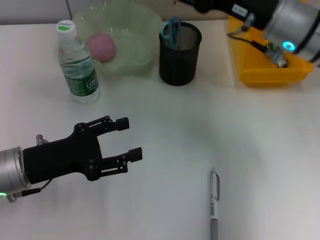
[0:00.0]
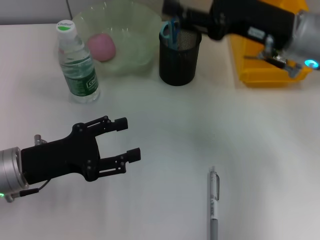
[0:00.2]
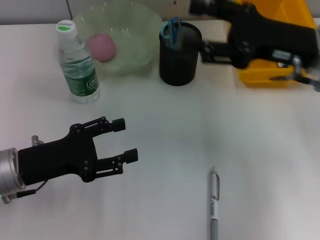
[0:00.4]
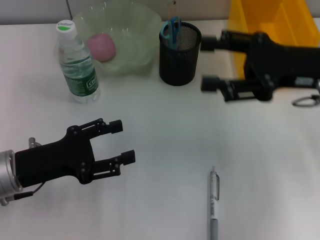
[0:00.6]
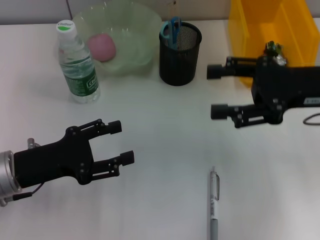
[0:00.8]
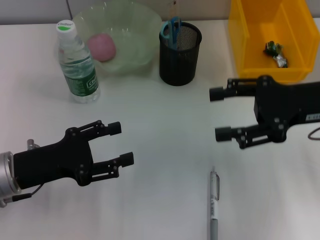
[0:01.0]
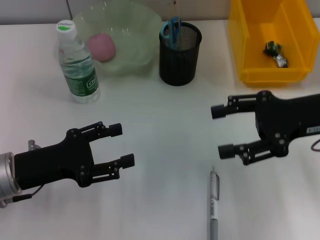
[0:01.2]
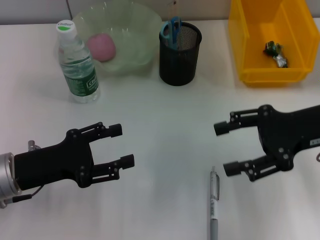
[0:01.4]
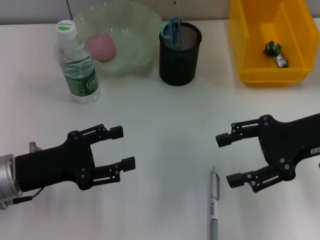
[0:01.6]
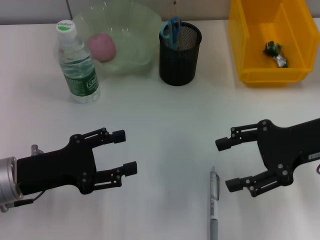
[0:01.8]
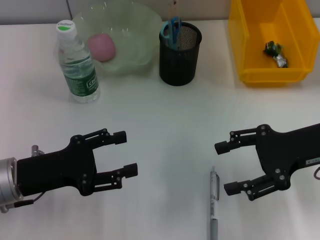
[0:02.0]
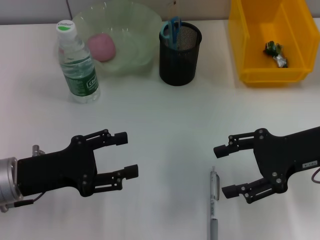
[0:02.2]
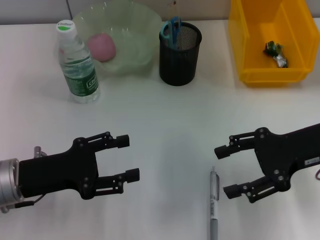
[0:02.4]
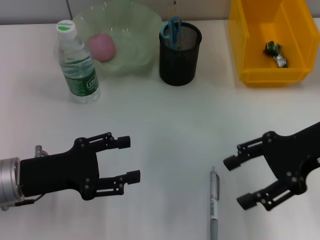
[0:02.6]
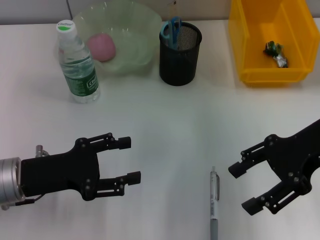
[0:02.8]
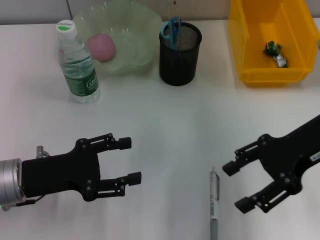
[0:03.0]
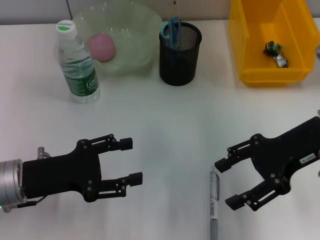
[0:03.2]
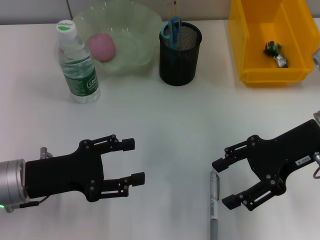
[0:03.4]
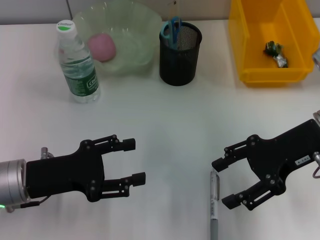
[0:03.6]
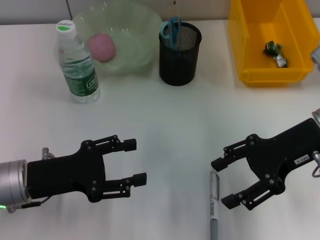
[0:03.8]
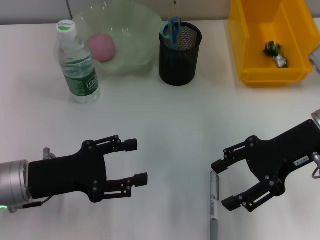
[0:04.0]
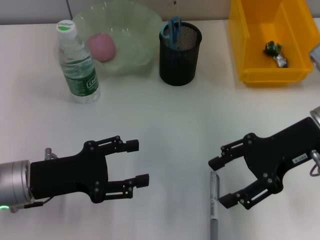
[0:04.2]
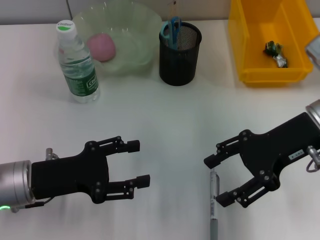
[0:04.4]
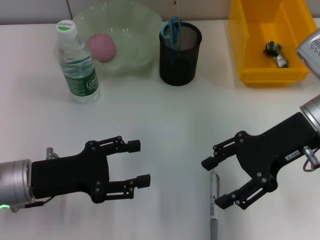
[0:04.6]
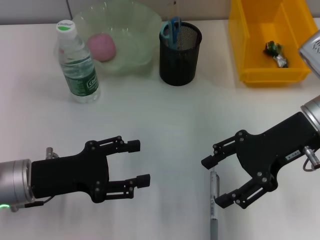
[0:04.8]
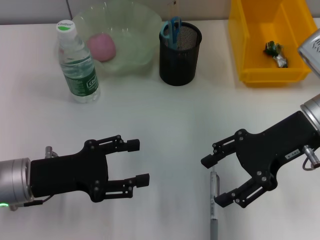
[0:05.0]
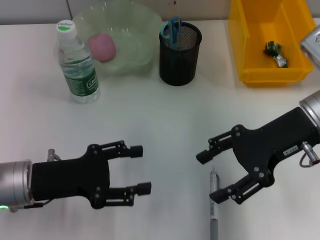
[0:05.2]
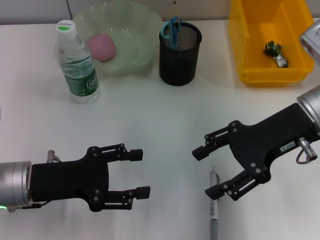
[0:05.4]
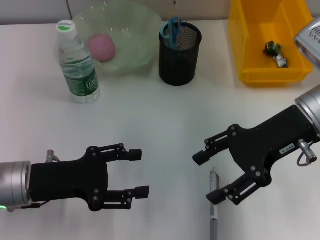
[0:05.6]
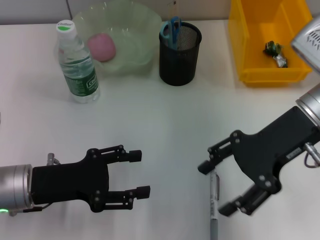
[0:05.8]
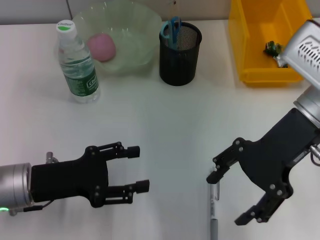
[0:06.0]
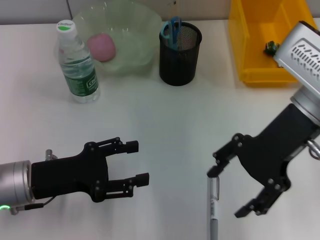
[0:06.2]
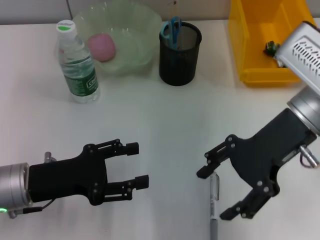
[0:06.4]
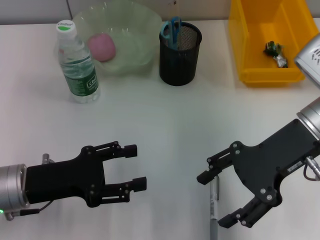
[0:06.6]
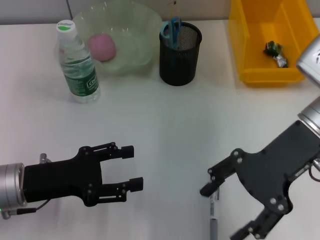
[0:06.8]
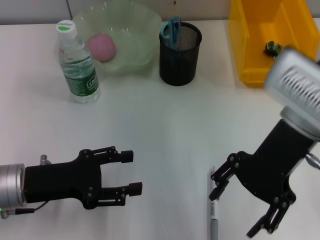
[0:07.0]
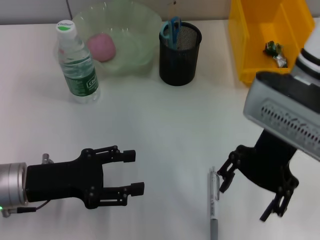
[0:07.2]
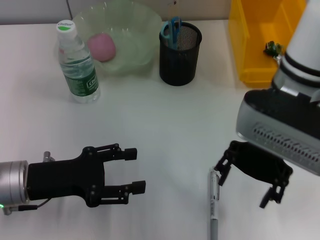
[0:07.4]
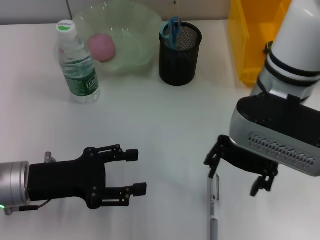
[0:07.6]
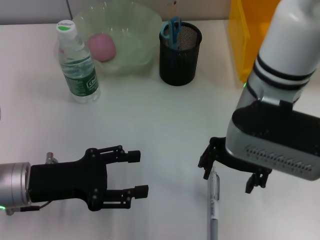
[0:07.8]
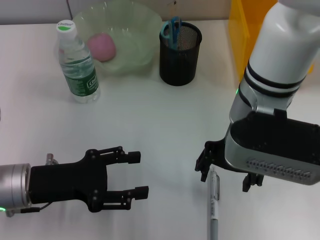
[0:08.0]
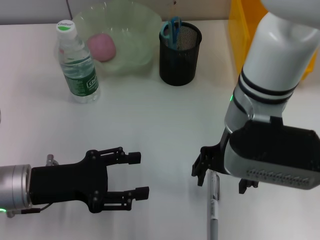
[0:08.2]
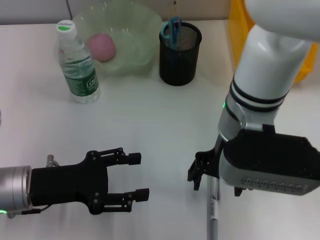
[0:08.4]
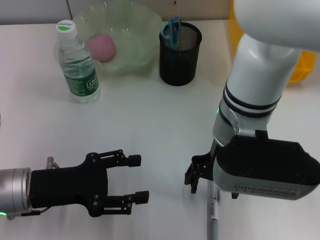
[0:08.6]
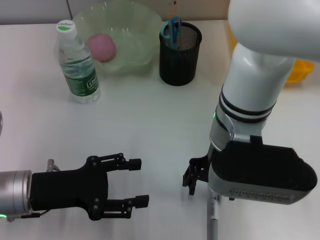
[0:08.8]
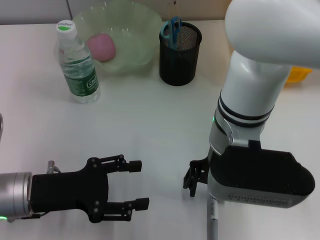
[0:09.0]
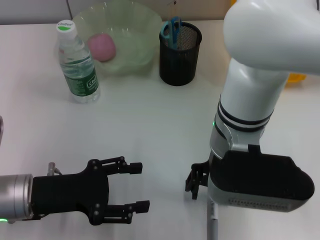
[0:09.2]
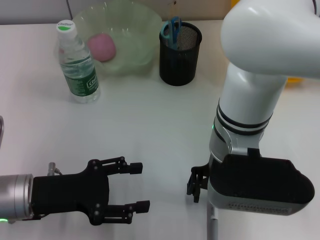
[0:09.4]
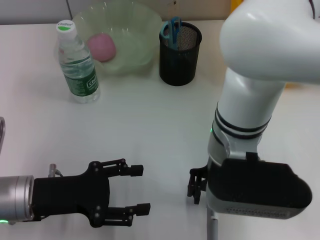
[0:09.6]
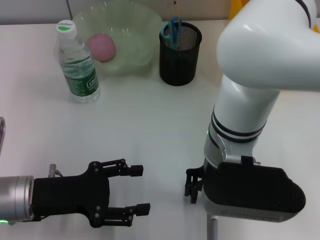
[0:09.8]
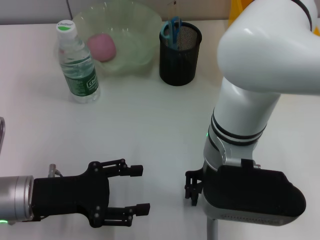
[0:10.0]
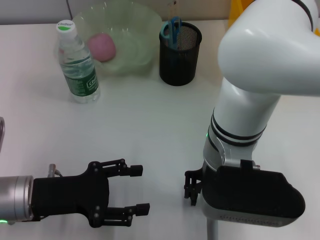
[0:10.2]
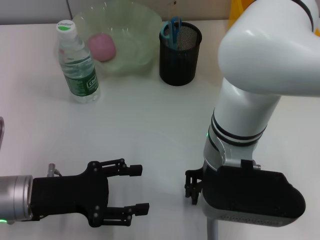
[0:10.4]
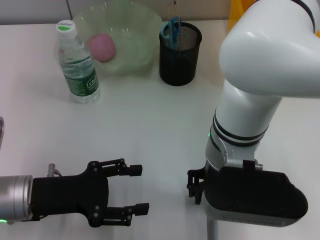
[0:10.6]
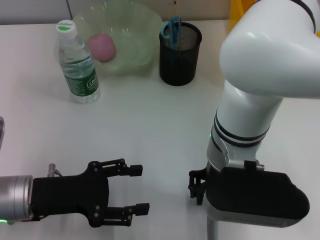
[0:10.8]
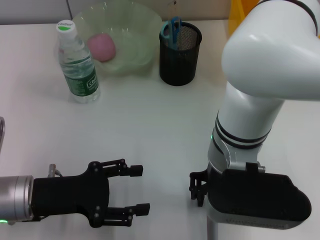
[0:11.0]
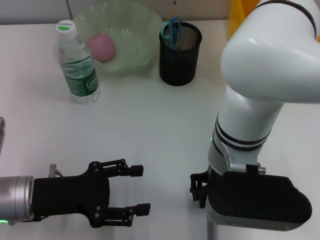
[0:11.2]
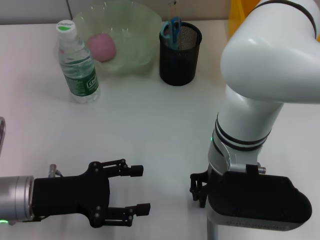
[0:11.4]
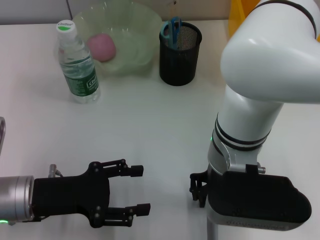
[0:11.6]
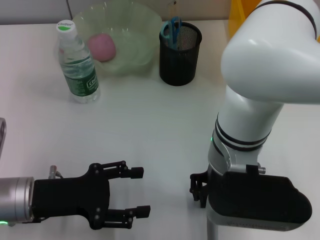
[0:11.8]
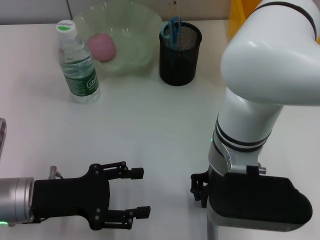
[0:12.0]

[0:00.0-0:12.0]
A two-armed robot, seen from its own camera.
0:00.0 to 0:01.6: The right gripper moves to the right and backward, roughly 10 cm.
0:03.0 to 0:04.4: The grippers move only a little.
0:04.4 to 0:06.0: The right gripper shifts by about 5 cm.
0:06.0 to 0:07.6: The right gripper moves to the left, roughly 10 cm.
0:07.6 to 0:09.0: The right gripper moves approximately 5 cm.
0:10.4 to 0:12.0: The two grippers keep their place.

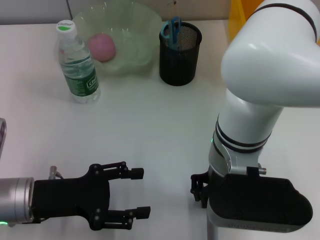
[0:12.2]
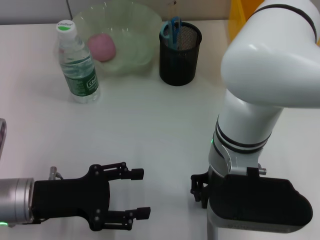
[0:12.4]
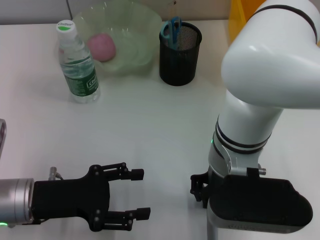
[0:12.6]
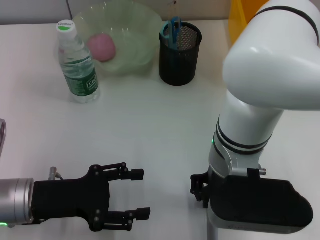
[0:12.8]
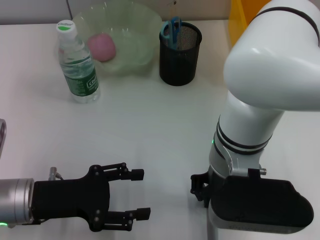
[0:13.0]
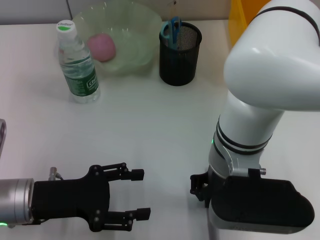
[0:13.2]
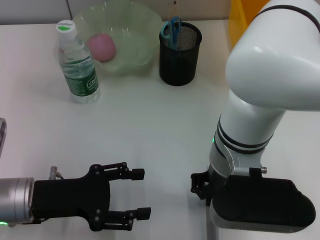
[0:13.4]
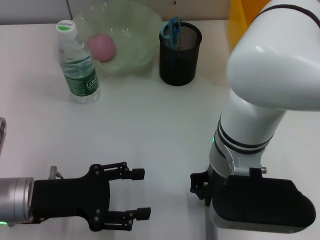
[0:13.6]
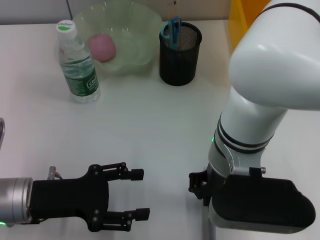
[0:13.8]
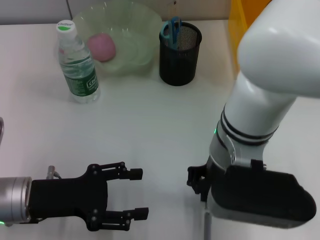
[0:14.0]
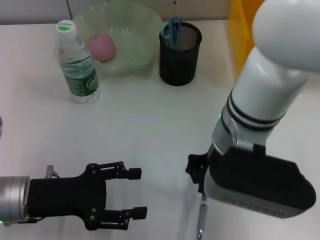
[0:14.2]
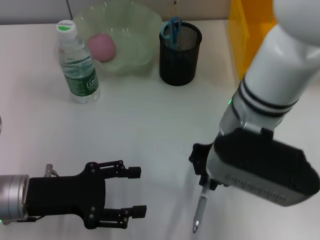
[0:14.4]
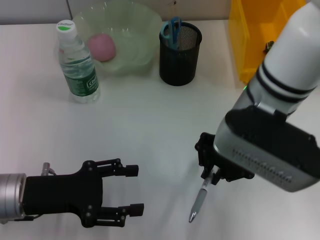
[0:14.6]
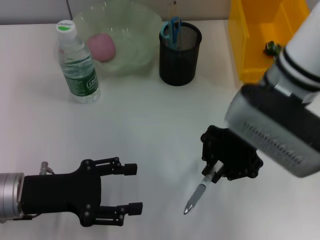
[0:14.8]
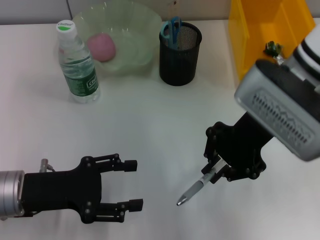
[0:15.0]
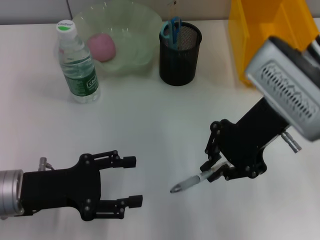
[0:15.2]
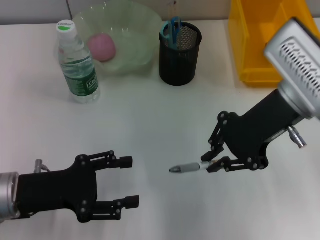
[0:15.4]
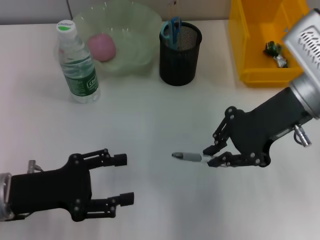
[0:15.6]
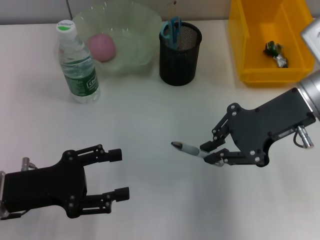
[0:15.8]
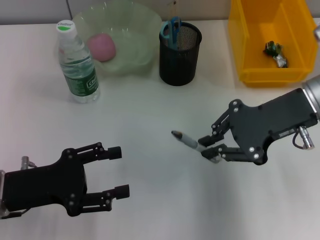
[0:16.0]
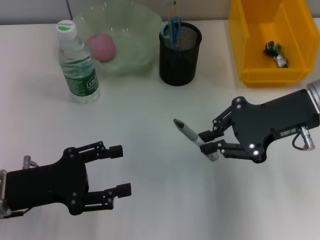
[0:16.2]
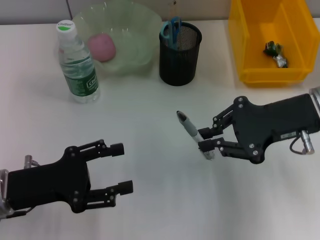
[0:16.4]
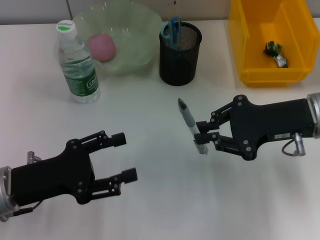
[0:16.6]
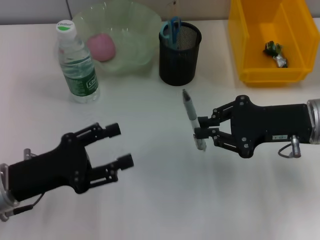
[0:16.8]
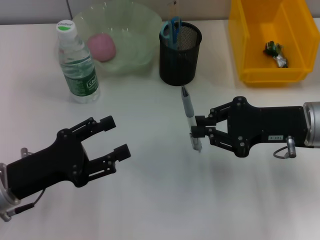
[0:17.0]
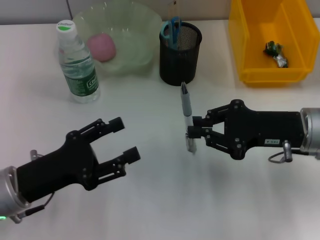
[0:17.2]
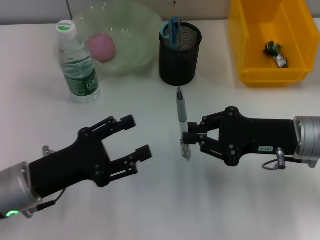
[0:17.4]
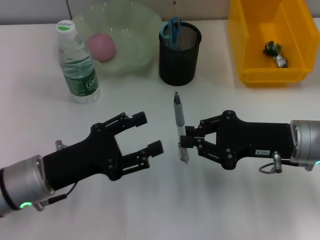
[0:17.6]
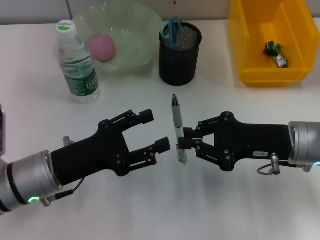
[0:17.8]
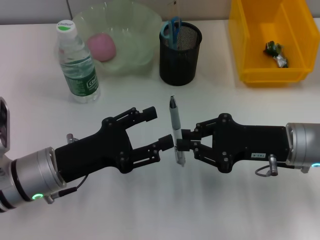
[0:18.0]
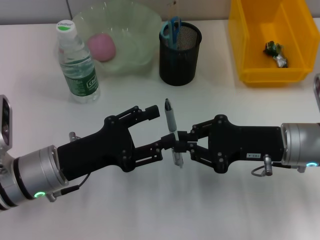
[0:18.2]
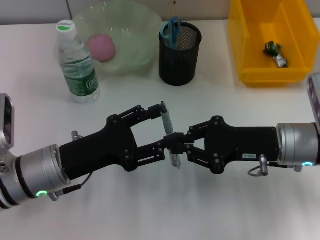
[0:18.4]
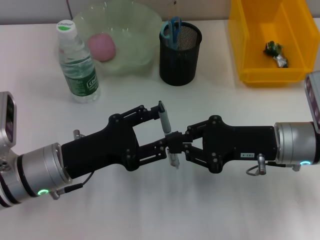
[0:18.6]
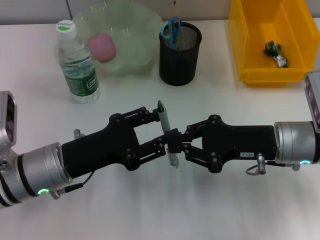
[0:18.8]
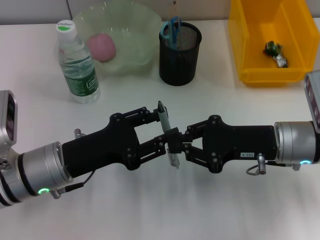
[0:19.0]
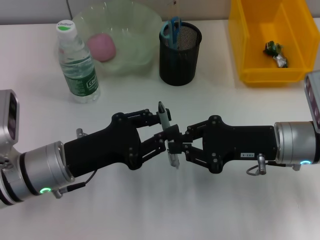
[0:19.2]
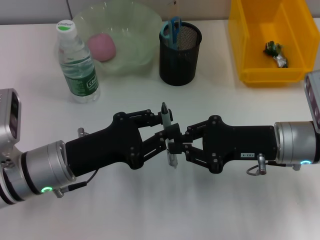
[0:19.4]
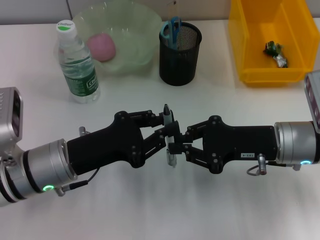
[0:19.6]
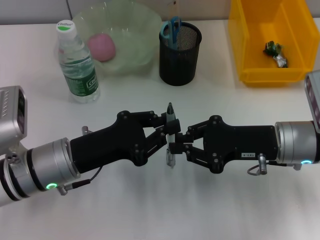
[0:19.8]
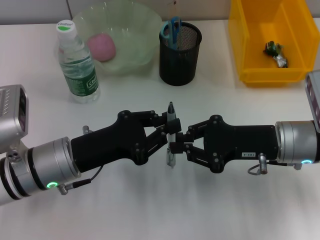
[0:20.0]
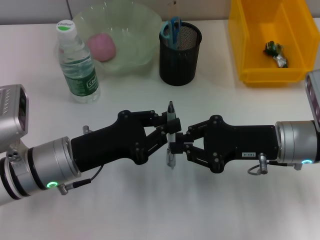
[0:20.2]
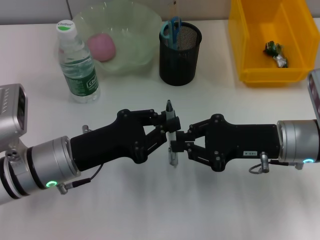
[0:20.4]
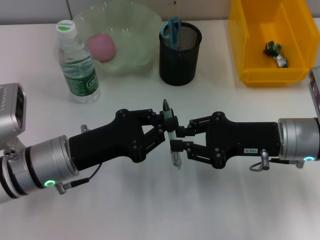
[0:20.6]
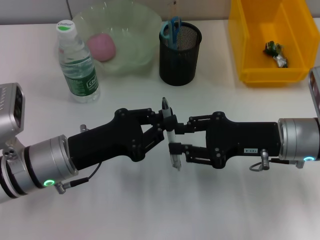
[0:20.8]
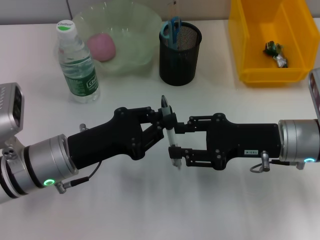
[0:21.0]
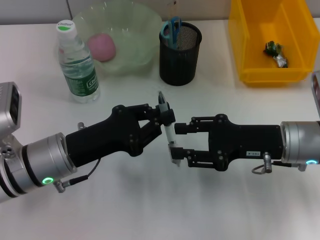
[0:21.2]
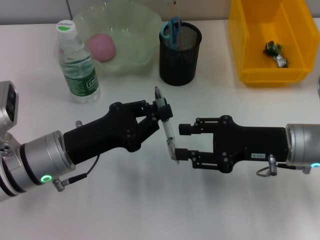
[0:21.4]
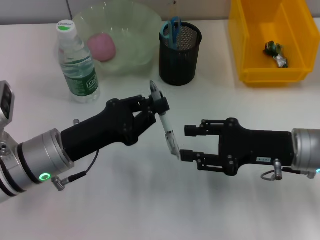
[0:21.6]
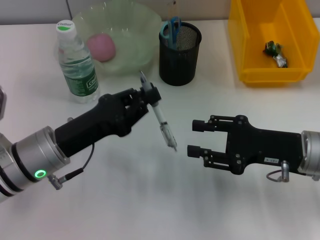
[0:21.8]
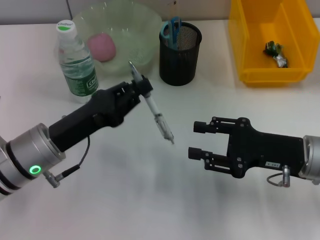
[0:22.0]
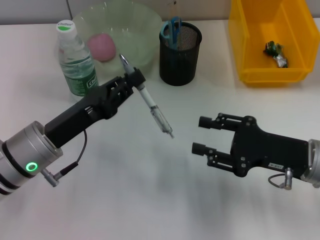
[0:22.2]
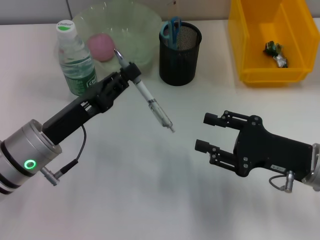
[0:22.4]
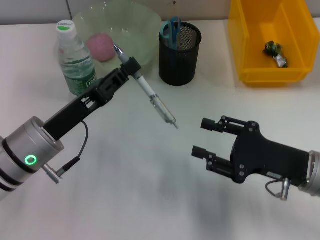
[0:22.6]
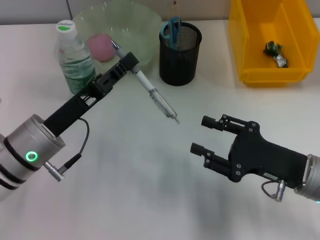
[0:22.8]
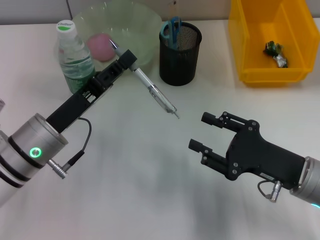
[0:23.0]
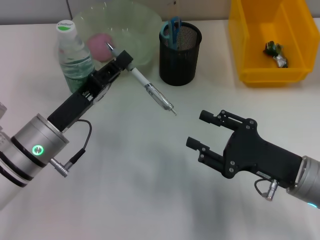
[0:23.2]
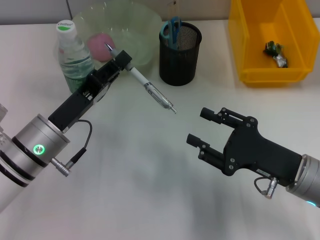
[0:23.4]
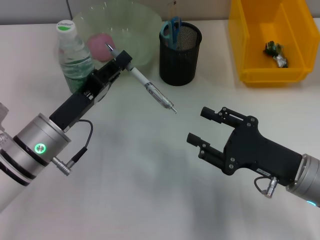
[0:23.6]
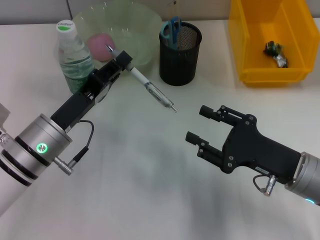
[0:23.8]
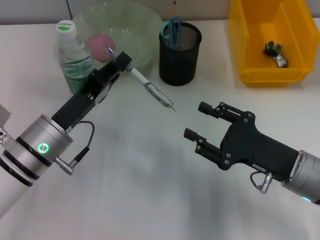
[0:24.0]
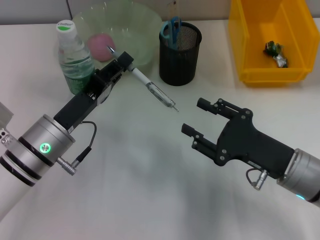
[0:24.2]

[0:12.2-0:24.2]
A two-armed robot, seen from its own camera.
Step, 0:12.8 to 0:20.6: Pass the gray spring-action pen from the right hand to the left hand.
0:12.2 to 0:13.8: Both grippers stay about where they are.
0:13.8 to 0:15.2: The right gripper moves to the right, upward and forward, roughly 10 cm.
0:15.2 to 0:16.6: The right gripper is displaced to the right and downward by about 10 cm.
0:16.6 to 0:18.2: The left gripper travels to the right by some 5 cm; the right gripper goes some 5 cm downward.
0:18.2 to 0:19.8: The left gripper closes its fingers.
0:19.8 to 0:21.2: The right gripper opens its fingers.
0:21.2 to 0:22.6: The right gripper heads backward, covering some 5 cm.
